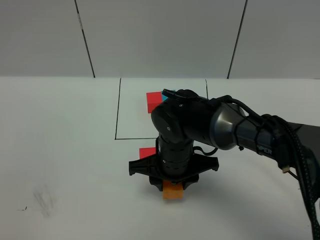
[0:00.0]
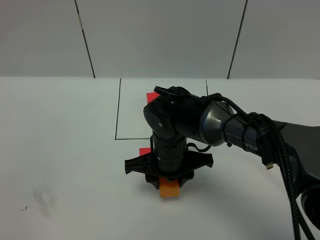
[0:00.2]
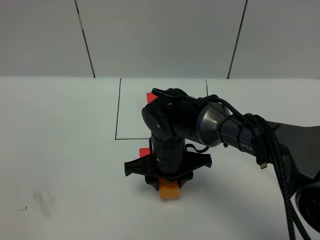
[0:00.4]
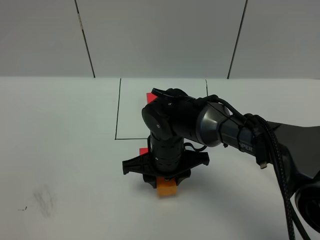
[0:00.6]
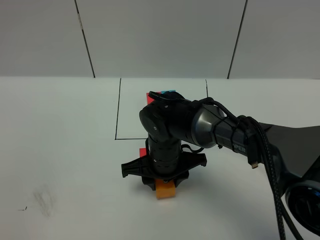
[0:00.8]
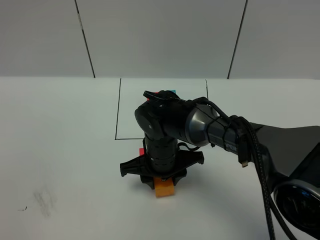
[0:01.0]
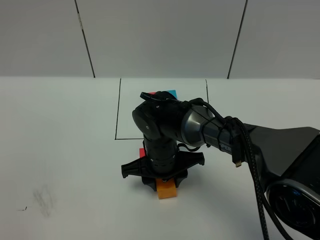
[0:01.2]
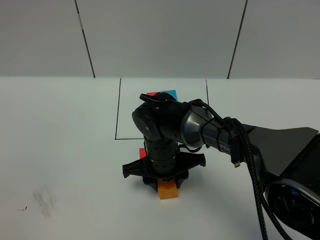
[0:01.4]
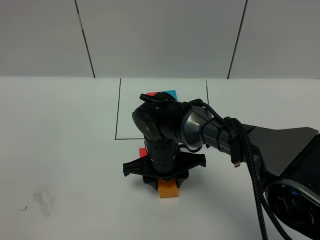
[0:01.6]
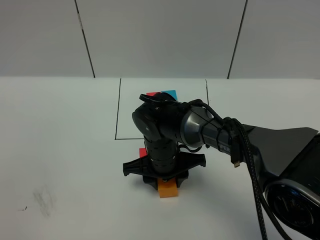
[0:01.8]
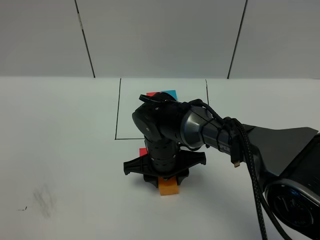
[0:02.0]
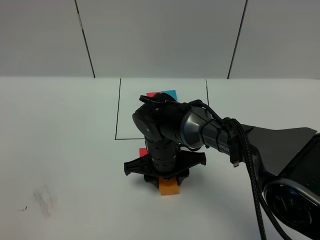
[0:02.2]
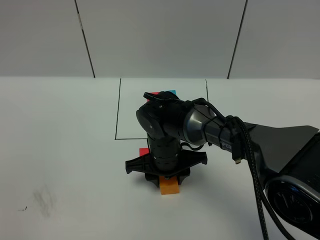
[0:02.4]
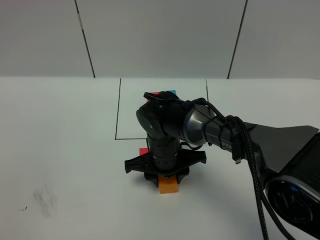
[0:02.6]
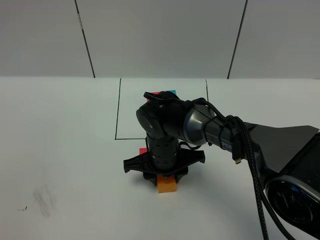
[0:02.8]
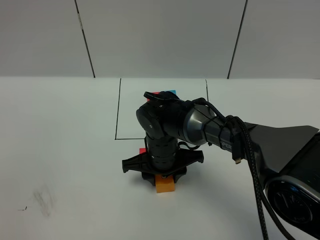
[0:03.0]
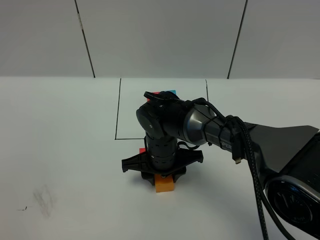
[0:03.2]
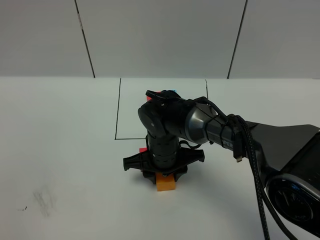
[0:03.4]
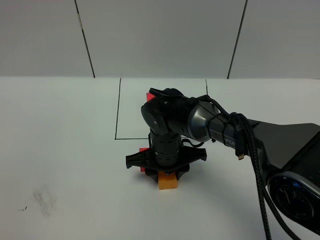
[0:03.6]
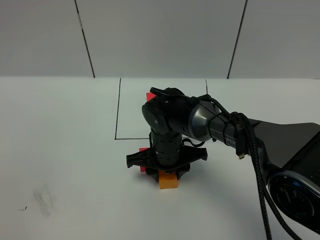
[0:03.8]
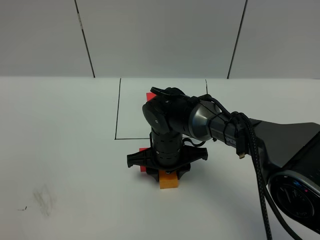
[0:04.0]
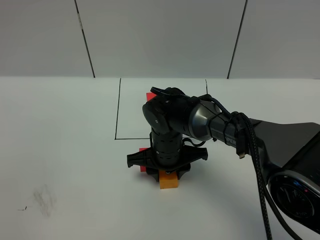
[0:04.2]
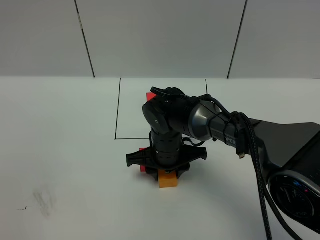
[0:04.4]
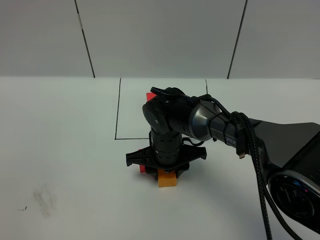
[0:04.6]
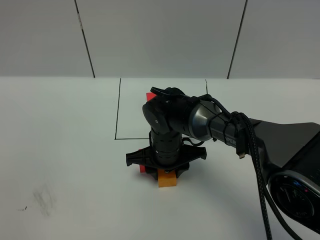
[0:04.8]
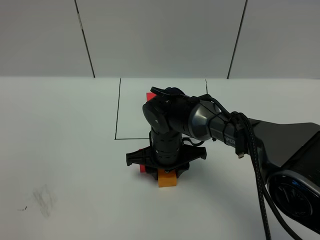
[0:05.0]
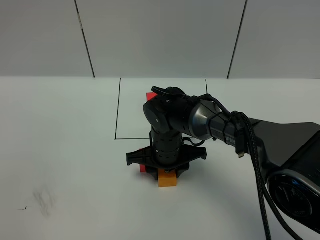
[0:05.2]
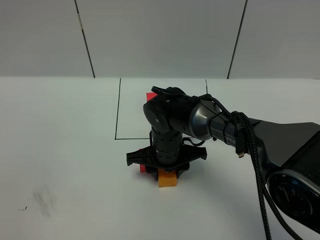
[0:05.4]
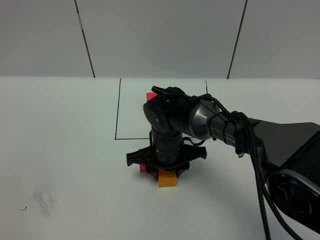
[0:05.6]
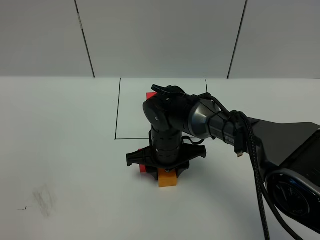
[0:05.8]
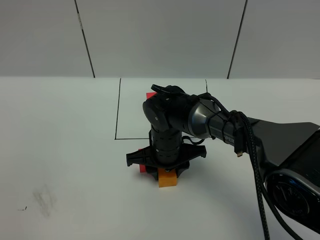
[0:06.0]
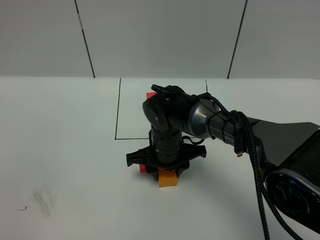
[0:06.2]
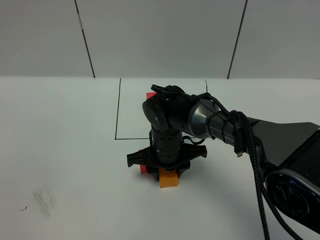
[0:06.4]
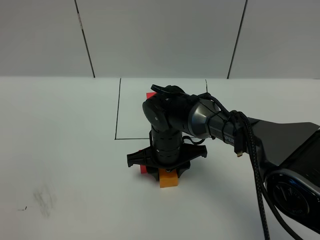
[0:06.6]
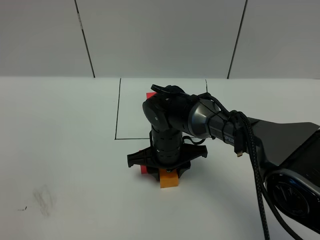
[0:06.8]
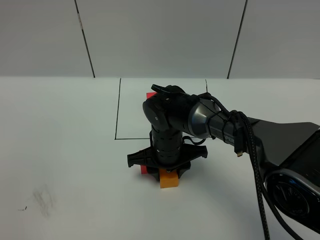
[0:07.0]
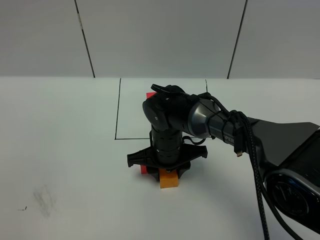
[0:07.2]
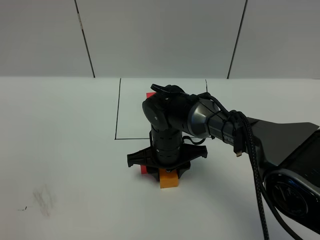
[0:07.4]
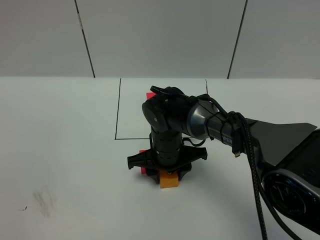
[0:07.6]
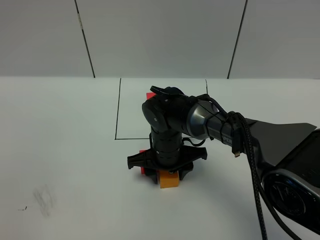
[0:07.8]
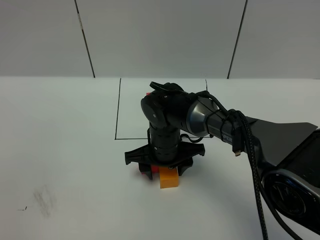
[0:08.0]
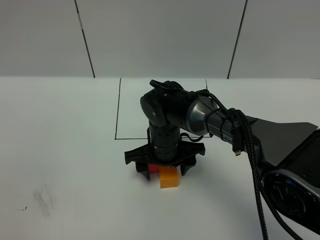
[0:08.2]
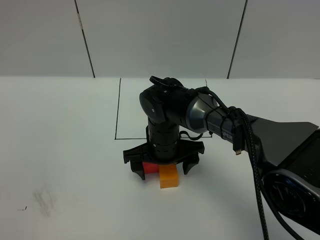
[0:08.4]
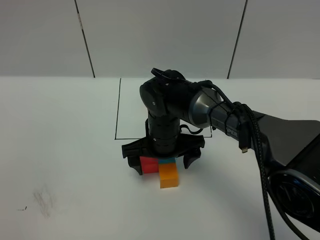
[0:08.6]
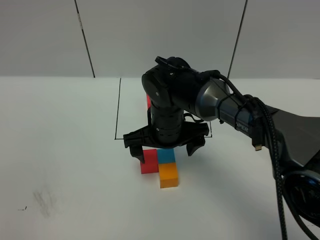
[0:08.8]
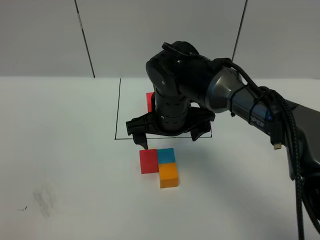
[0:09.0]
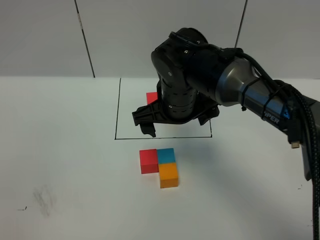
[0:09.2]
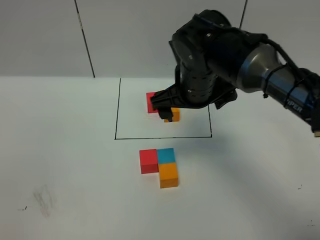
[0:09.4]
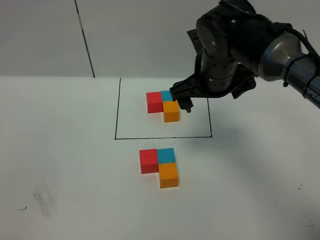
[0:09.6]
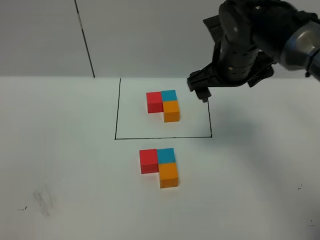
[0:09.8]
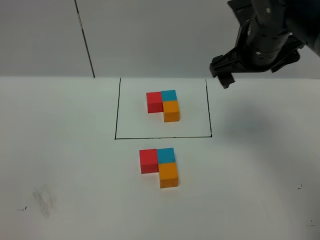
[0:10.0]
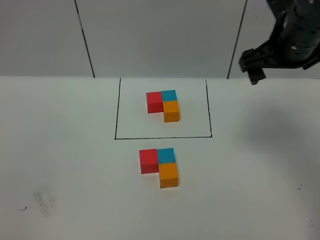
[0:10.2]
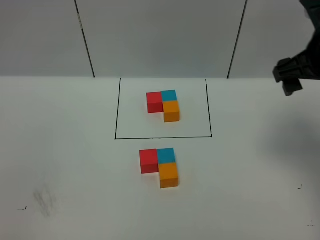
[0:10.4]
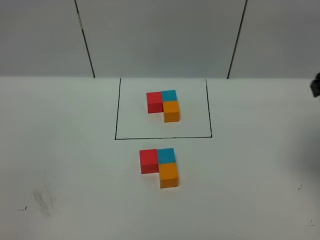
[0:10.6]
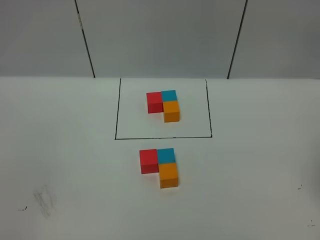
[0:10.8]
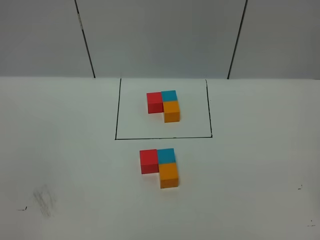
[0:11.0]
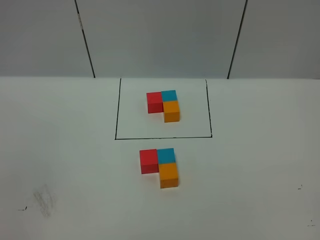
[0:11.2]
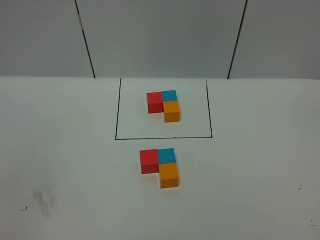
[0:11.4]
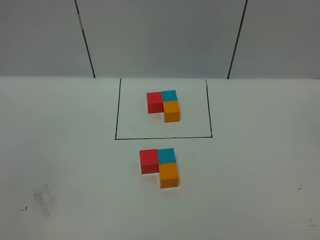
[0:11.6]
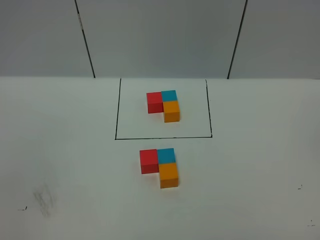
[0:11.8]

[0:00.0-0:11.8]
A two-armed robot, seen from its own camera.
Task of the whole recording: According to the building block template in front, assemble the scattered blocks together.
Step, 0:00.0 to 0:08.4: Put the orange cube in the front of the blue cube.
0:00.0 to 0:01.4: The grippers make only small movements.
0:01.4 to 0:03.0: Neither gripper changes place.
0:03.0 to 0:04.4: Both grippers stay put.
0:04.4 to 0:07.4: Both grippers stay about where they are.
0:07.4 to 0:08.8: The right gripper is displaced upward by about 5 cm, and opens its fingers.
0:08.8 to 0:10.4: The right gripper heads to the right and upward, covering some 30 cm.
0:10.4 to 0:11.8: The right gripper is displaced backward by approximately 30 cm.
